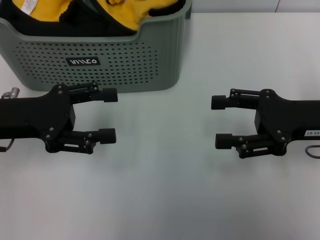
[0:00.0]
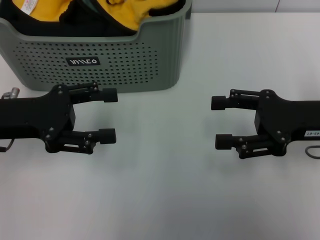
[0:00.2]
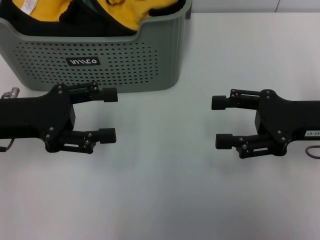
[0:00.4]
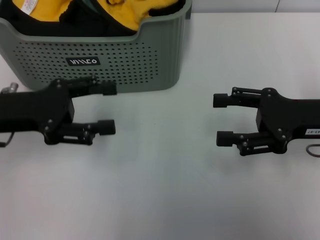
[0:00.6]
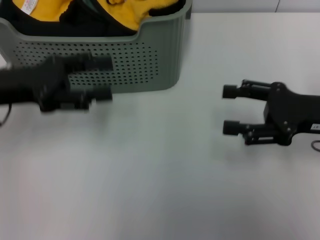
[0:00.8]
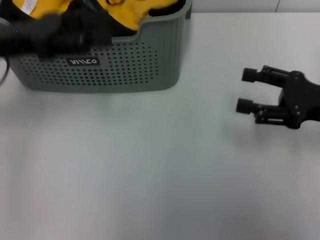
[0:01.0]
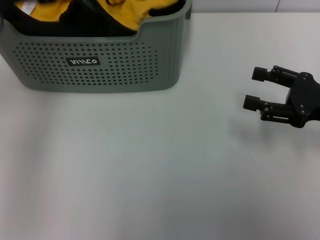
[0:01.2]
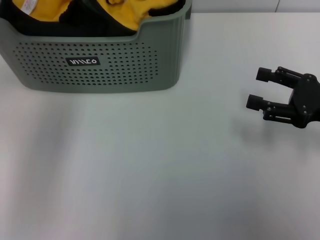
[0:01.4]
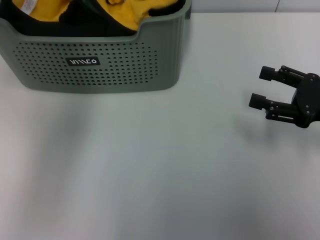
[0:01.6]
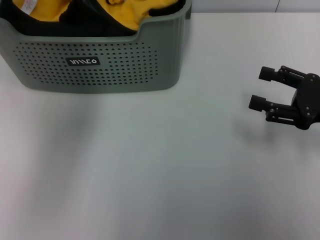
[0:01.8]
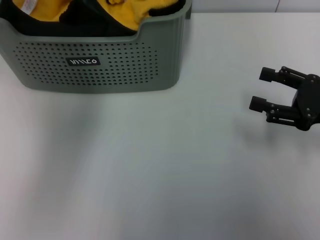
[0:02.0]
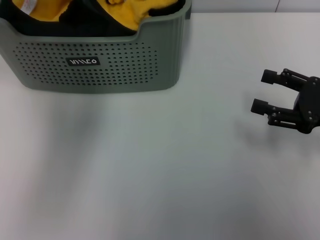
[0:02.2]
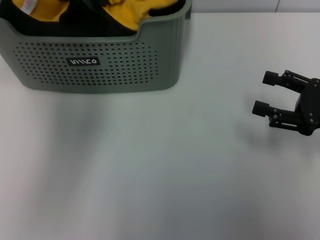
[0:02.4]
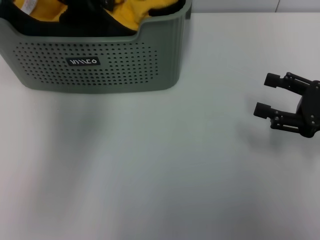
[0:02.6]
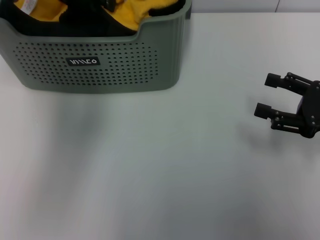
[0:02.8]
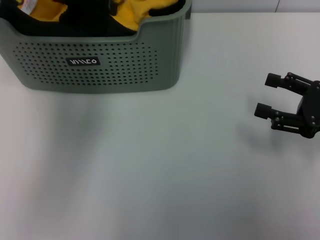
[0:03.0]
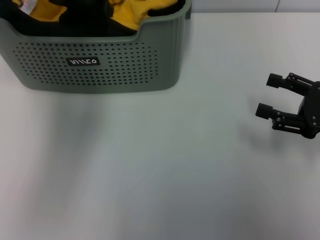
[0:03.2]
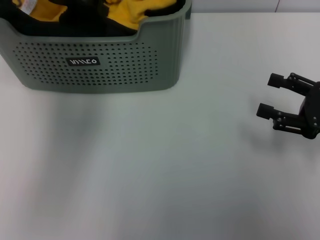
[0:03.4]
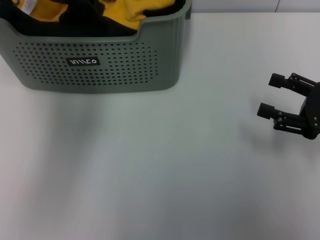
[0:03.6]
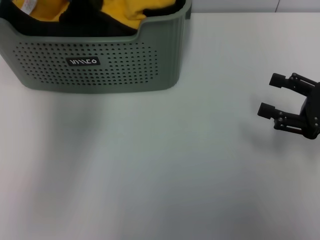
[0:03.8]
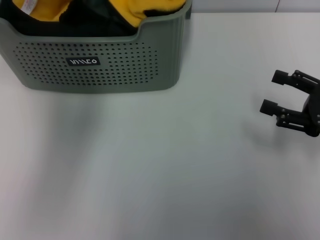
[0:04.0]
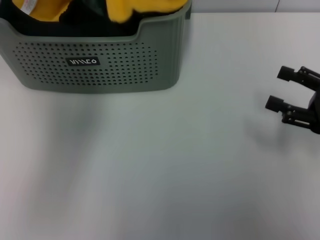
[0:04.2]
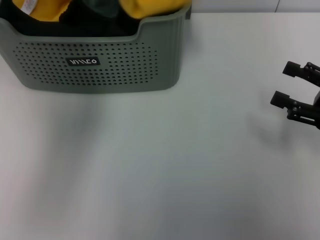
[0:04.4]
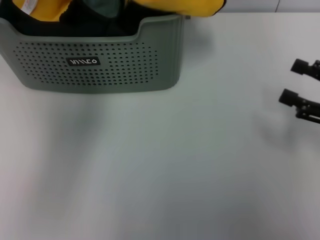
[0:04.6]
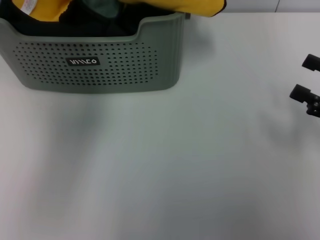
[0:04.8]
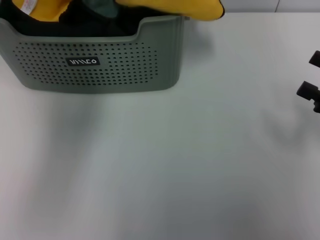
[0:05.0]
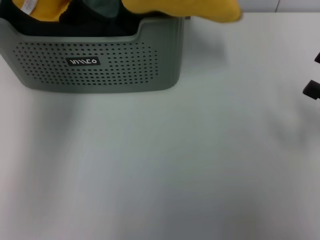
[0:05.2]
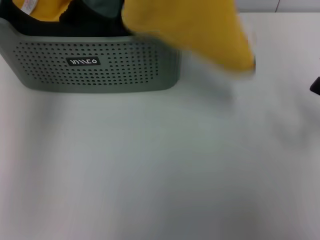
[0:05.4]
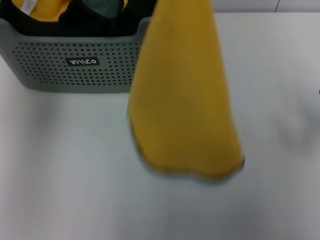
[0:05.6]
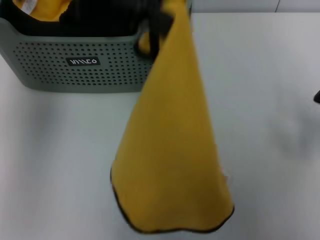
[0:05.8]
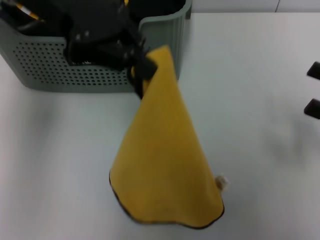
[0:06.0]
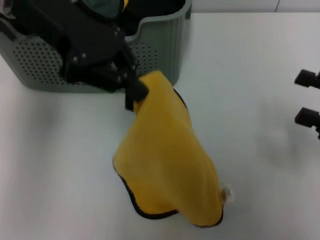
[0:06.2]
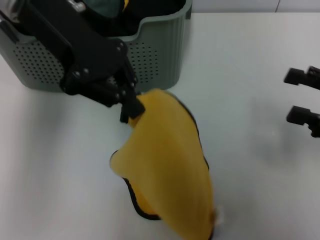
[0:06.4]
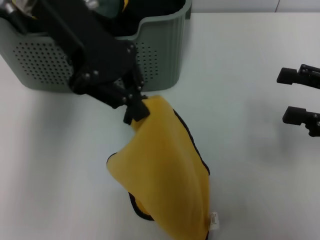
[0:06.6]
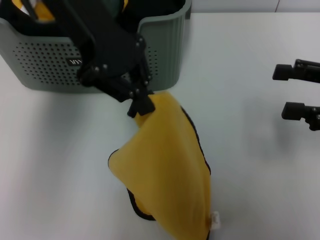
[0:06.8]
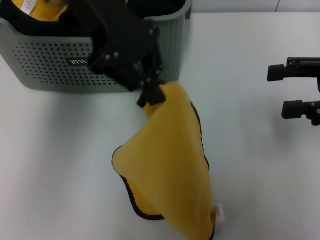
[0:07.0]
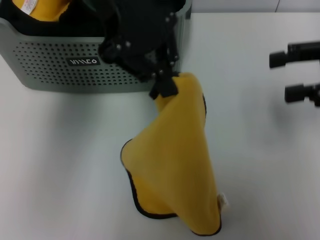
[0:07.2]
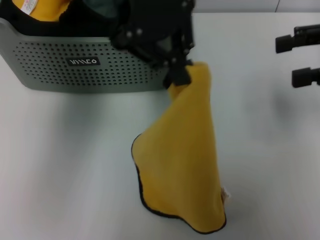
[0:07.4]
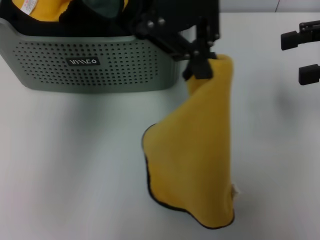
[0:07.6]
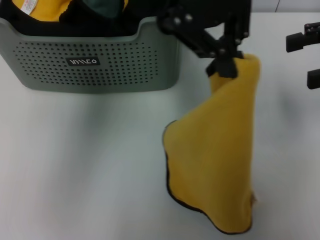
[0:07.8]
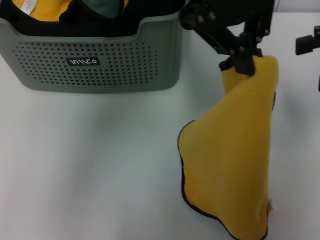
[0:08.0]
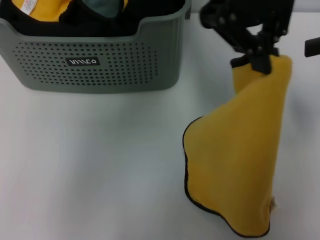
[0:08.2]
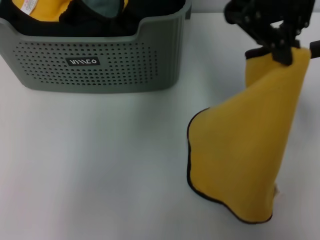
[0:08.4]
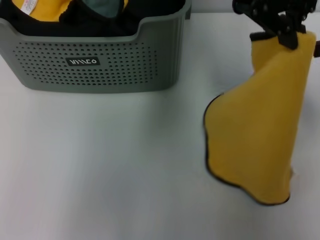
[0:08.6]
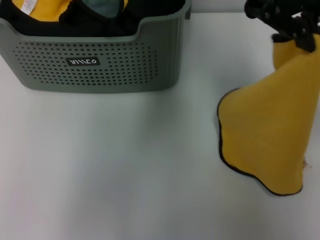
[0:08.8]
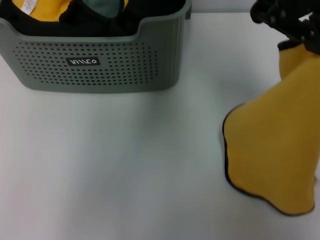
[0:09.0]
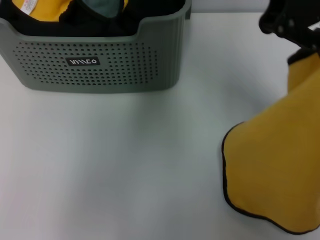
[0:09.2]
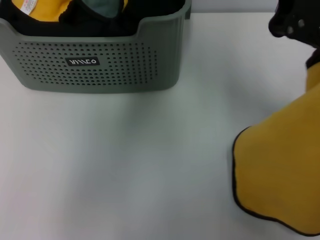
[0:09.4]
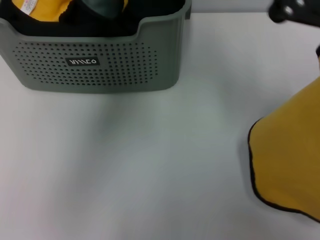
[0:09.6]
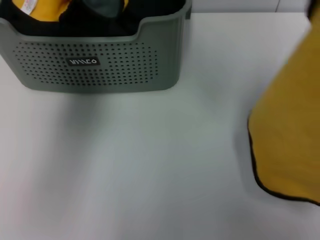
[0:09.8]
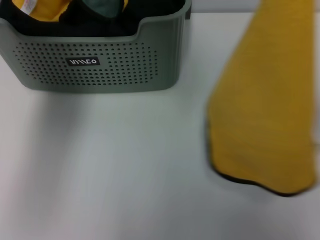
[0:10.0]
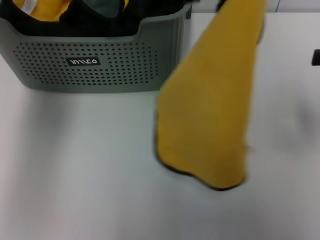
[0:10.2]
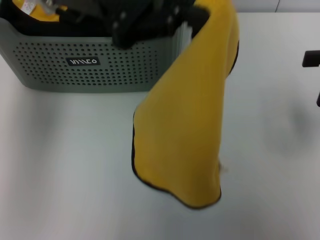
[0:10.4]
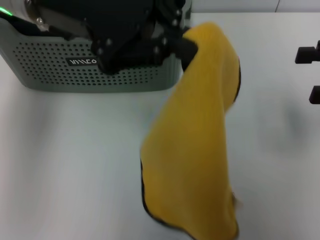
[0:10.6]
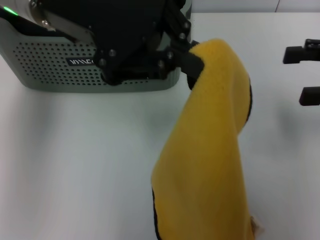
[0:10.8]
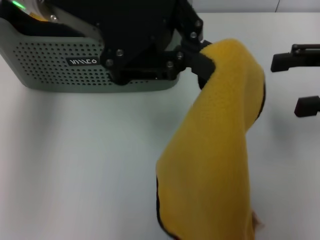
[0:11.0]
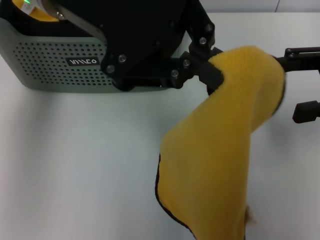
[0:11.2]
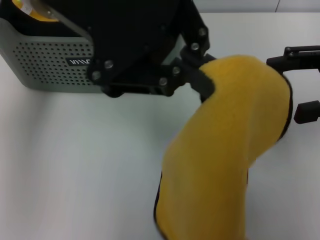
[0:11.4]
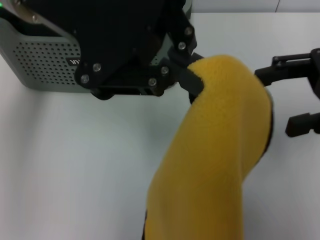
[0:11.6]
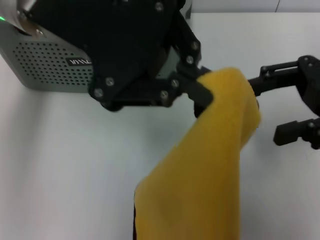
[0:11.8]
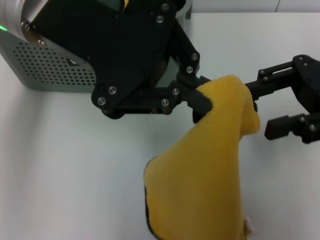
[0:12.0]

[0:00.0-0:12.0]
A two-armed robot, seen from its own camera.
Task of the whole recording: pick up the towel from the storage box and lay it flat on the table.
Step, 0:00.0 to 0:03.6: Pick up a towel with the left gripper.
0:00.0 to 0:01.6: The right gripper heads to the right, covering some 5 cm, while the left gripper is displaced upward and forward by about 20 cm.
0:01.6 to 0:03.0: The left gripper changes place by about 10 cm.
0:03.0 to 0:04.4: The left gripper moves upward, about 10 cm, and closes up.
0:04.4 to 0:06.0: The left gripper is displaced downward and to the right by about 10 cm.
0:06.0 to 0:07.6: The right gripper goes roughly 15 cm upward and forward. The left gripper moves to the right and upward, about 15 cm.
0:07.6 to 0:09.0: The grippers both shift to the right by some 10 cm.
0:09.0 to 0:10.4: The left gripper moves to the left and downward, about 25 cm.
0:10.4 to 0:12.0: The right gripper goes roughly 10 cm to the left, while the left gripper shifts by roughly 5 cm.

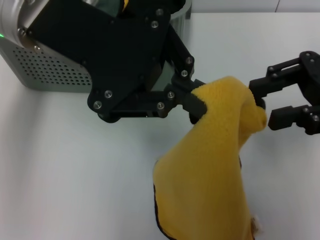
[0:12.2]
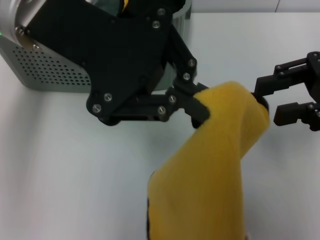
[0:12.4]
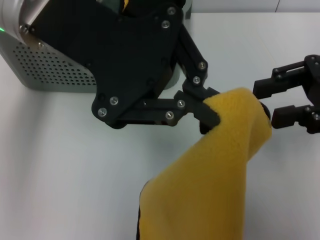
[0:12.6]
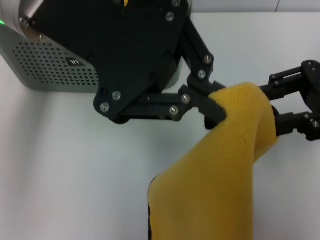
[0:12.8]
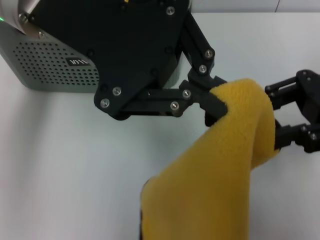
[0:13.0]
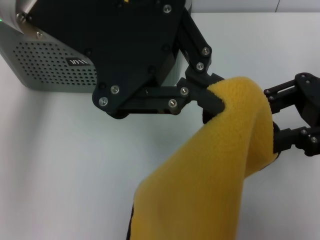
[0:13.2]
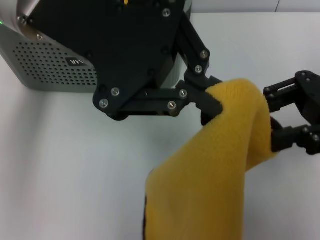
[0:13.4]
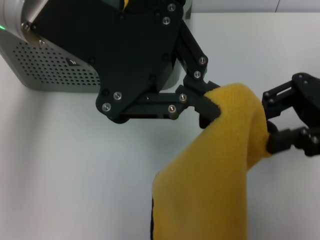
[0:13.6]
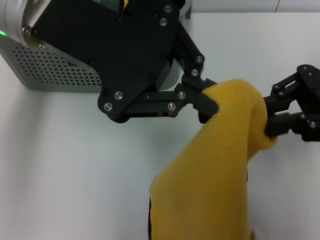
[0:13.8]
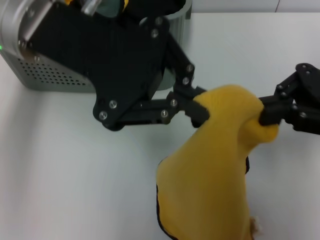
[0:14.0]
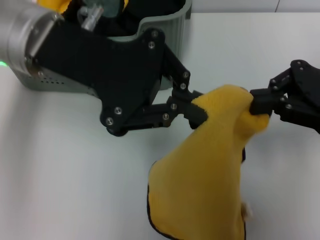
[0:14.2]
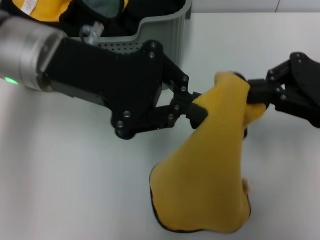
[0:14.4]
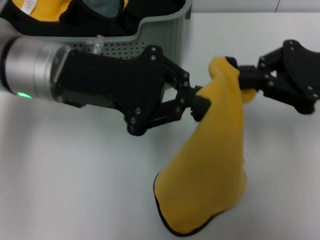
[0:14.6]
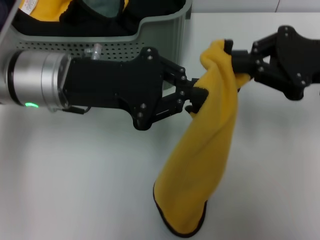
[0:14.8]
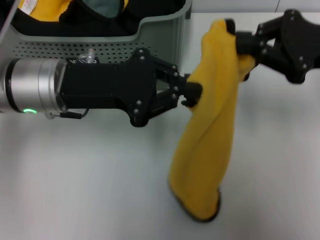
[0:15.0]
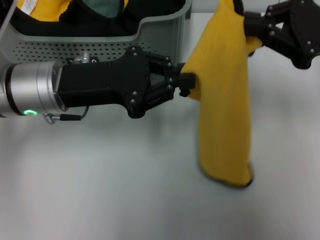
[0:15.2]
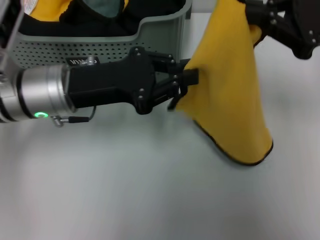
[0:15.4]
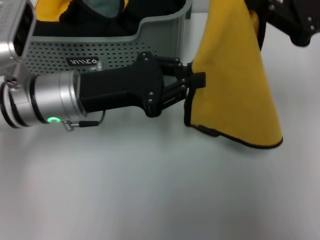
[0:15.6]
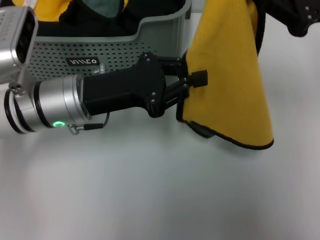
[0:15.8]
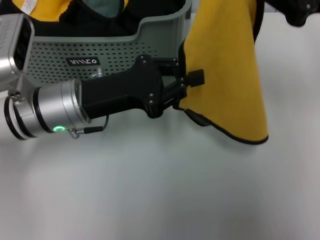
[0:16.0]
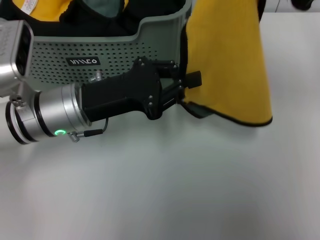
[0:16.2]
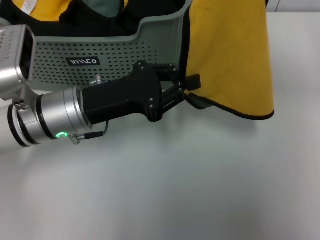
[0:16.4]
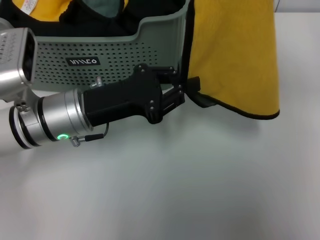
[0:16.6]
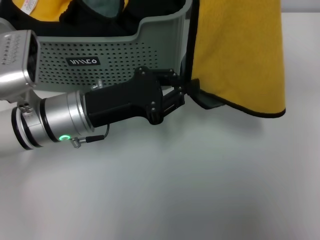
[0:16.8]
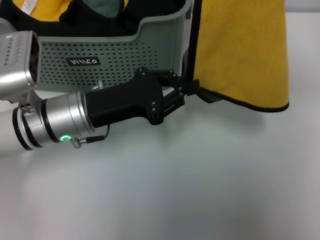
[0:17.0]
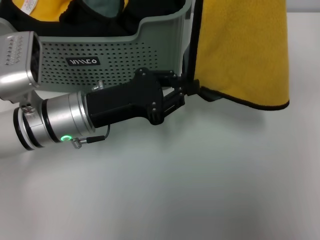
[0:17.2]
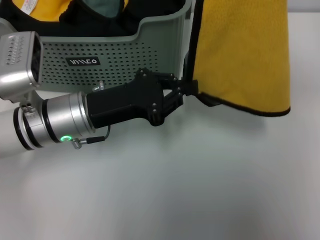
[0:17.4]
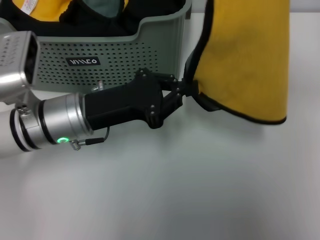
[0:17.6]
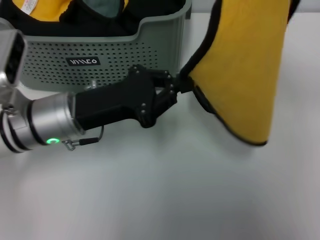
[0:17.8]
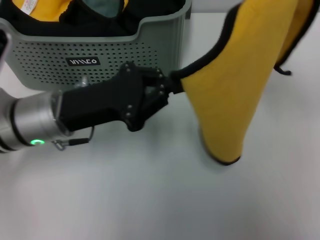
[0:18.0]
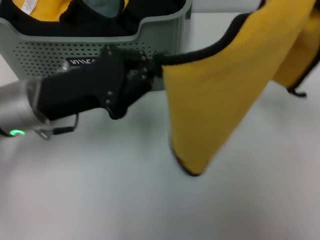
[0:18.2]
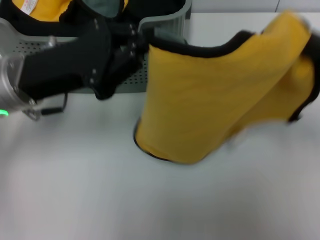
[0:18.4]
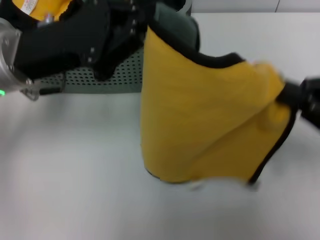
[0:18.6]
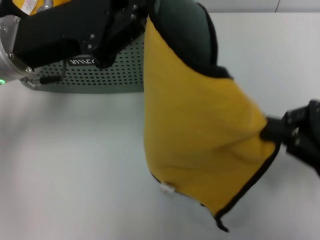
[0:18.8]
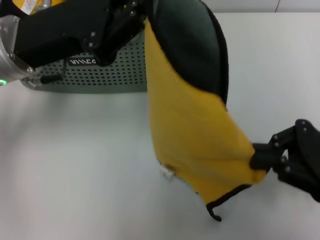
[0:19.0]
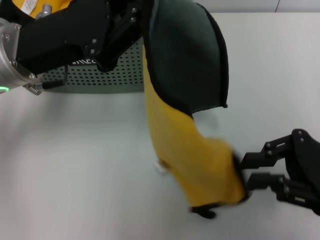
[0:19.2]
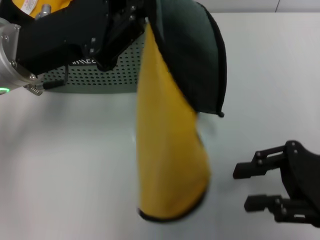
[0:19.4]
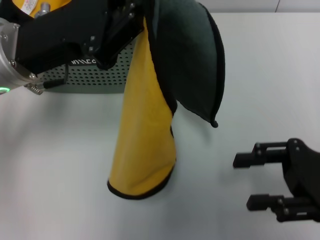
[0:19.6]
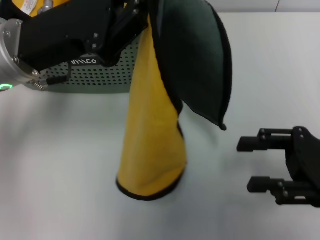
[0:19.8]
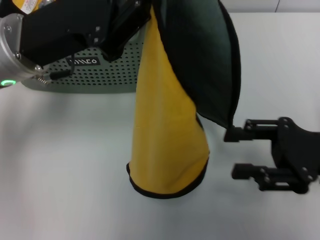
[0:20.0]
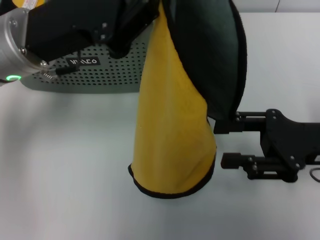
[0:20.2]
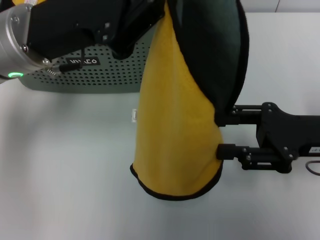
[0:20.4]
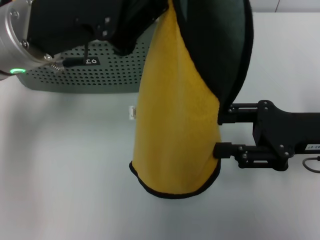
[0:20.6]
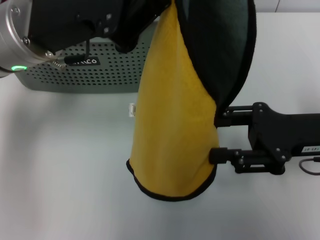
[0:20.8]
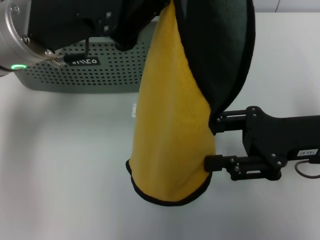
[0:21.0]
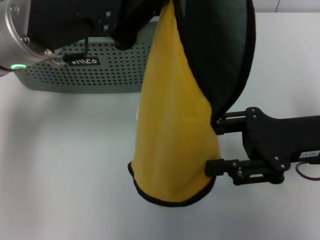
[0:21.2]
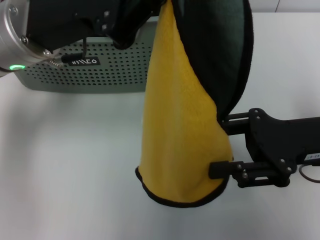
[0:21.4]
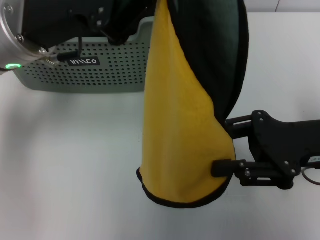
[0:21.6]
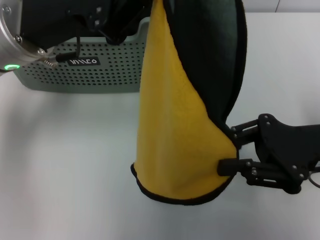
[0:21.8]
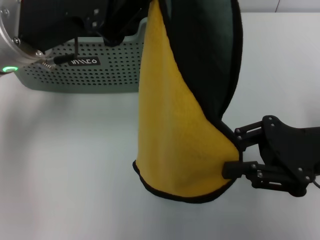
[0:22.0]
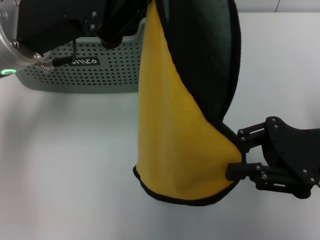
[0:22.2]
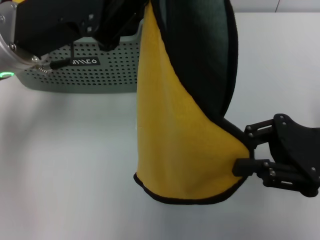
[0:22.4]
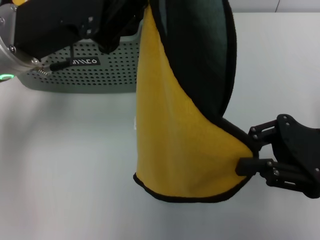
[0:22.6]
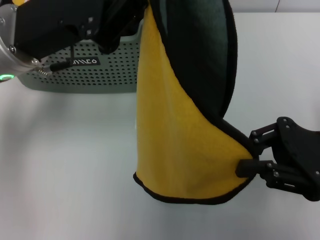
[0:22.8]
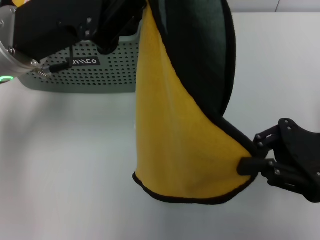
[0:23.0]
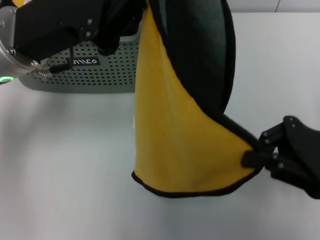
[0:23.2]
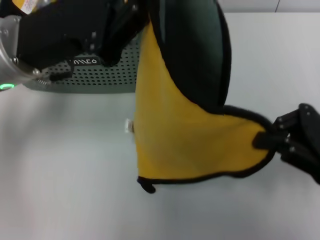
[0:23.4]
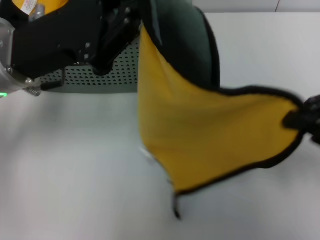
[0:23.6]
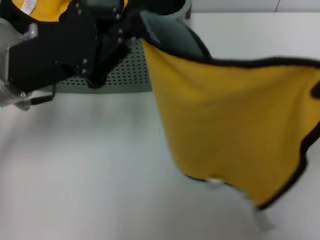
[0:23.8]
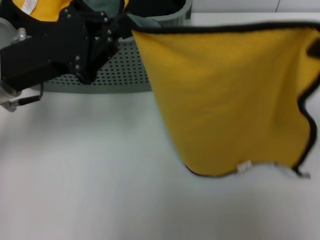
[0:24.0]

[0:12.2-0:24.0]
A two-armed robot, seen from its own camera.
Task of the whole recording: pick up the towel from the storage box and lay it flat on the table.
Step, 0:12.2 to 0:23.0: Spread the towel flat with the left gripper.
0:12.2 to 0:13.6: The grippers make only small movements.
0:13.6 to 0:15.2: The left gripper heads downward, covering about 15 cm.
0:15.2 to 0:16.6: The right gripper heads upward, covering approximately 5 cm; the left gripper heads downward, covering approximately 5 cm.
0:16.6 to 0:18.2: The right gripper moves downward and backward, approximately 10 cm. The left gripper ends up some 5 cm from where it was.
0:18.2 to 0:19.6: The left gripper moves some 5 cm. The right gripper heads downward and backward, covering some 10 cm, and opens.
0:19.6 to 0:21.0: The right gripper shifts by about 5 cm.
0:21.0 to 0:22.6: The right gripper closes up.
0:22.6 to 0:24.0: The right gripper heads upward and to the right, covering roughly 10 cm, while the left gripper changes place by approximately 5 cm.
